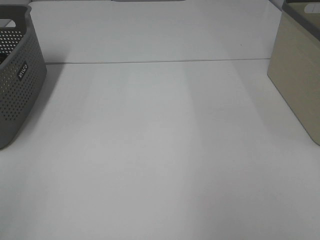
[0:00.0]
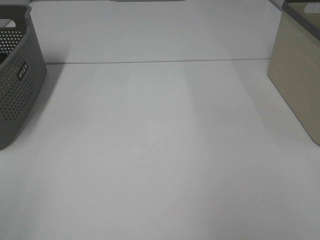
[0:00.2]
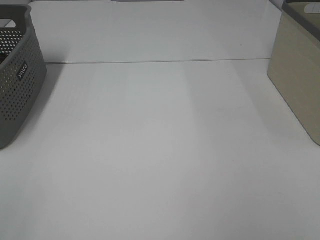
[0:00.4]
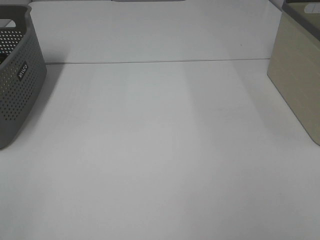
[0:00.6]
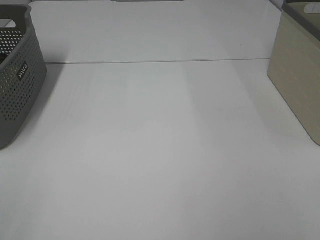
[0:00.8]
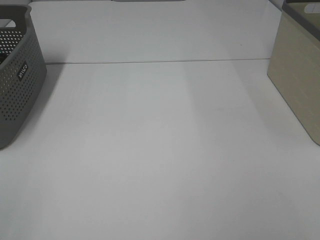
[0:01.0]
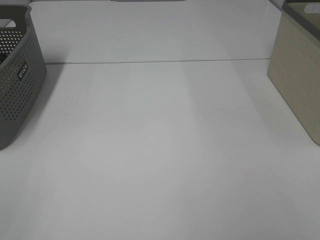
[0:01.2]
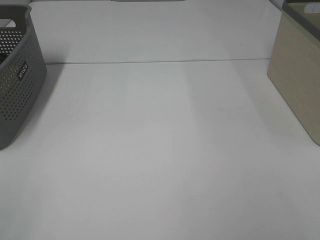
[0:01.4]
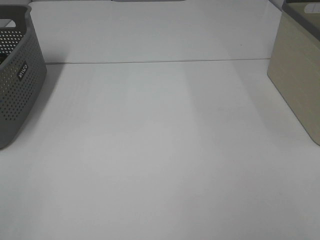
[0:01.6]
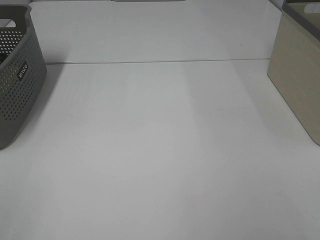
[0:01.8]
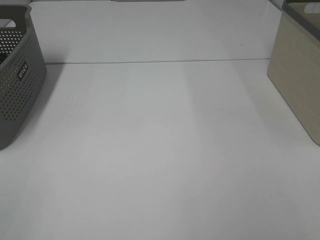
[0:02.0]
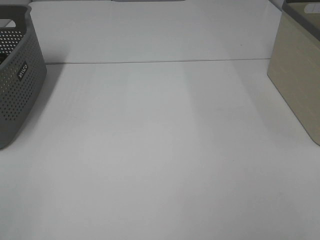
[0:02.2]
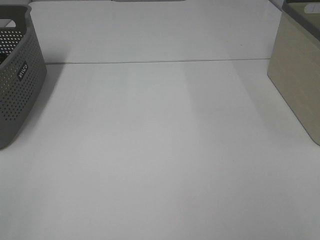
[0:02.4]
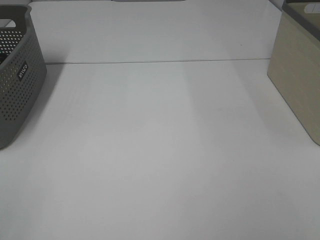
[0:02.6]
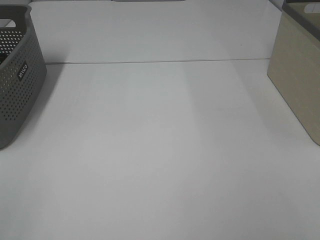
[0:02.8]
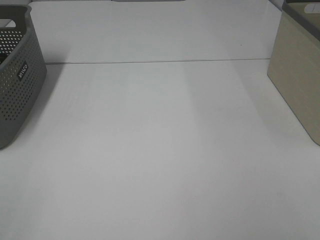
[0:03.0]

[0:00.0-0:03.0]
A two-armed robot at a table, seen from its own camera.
0:01.6 to 0:03.0: Both grippers stay about where they are.

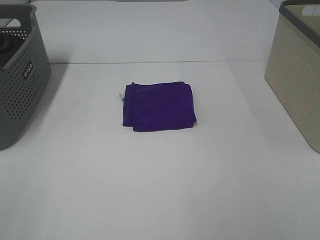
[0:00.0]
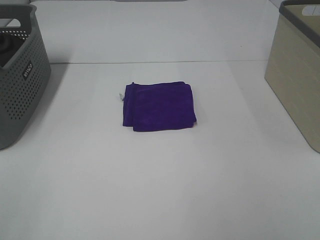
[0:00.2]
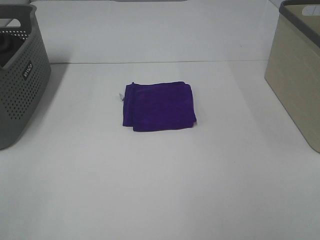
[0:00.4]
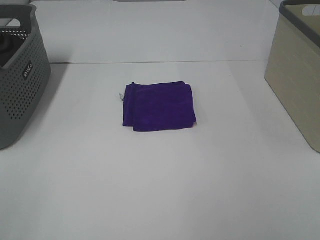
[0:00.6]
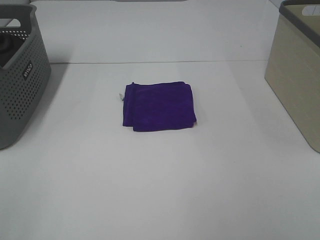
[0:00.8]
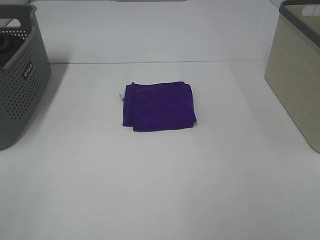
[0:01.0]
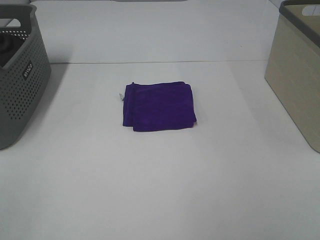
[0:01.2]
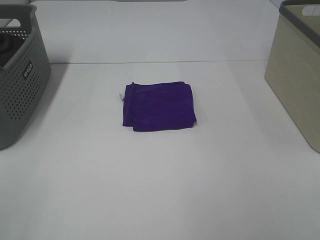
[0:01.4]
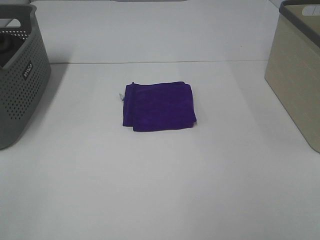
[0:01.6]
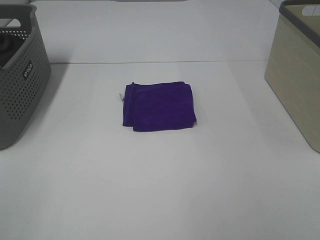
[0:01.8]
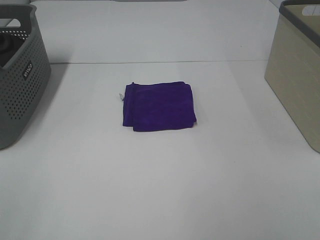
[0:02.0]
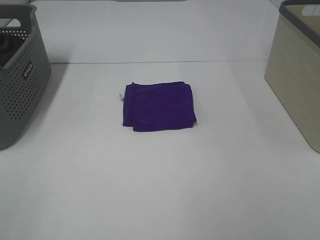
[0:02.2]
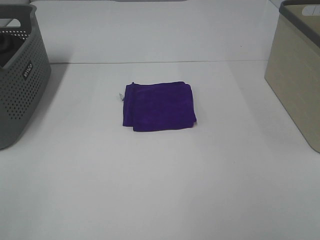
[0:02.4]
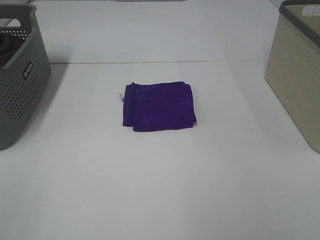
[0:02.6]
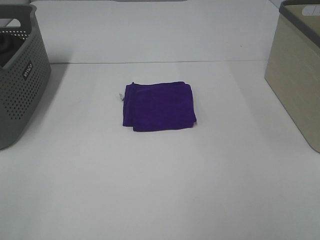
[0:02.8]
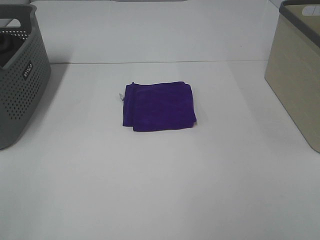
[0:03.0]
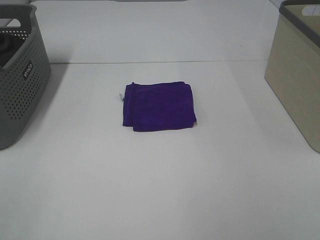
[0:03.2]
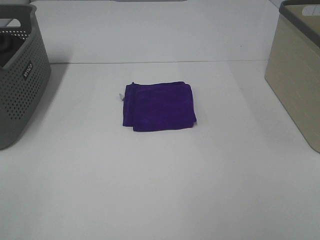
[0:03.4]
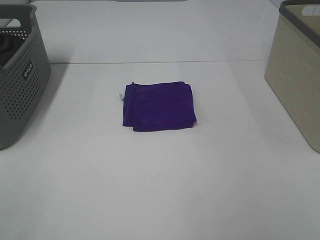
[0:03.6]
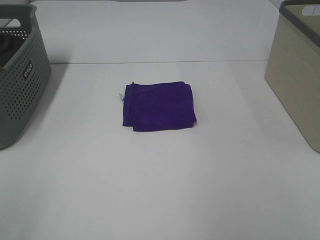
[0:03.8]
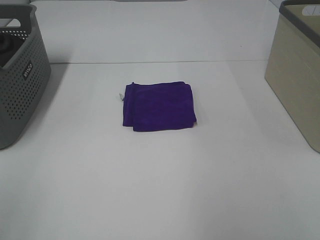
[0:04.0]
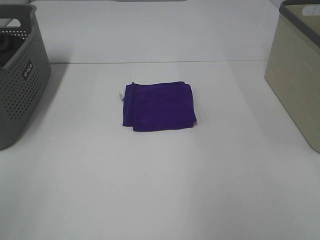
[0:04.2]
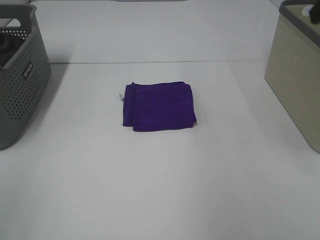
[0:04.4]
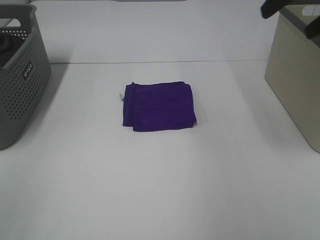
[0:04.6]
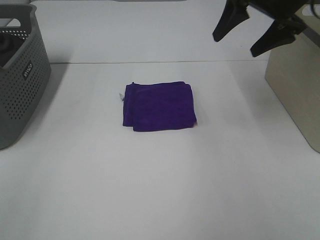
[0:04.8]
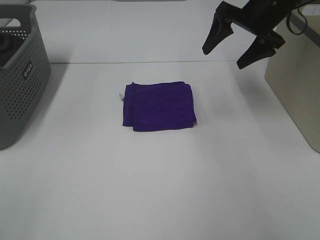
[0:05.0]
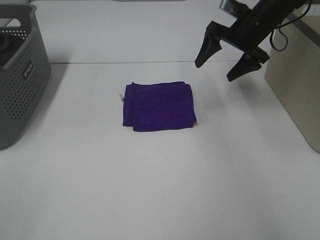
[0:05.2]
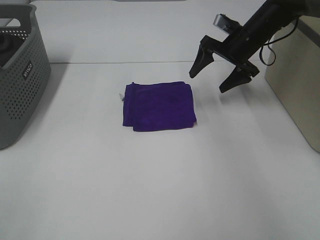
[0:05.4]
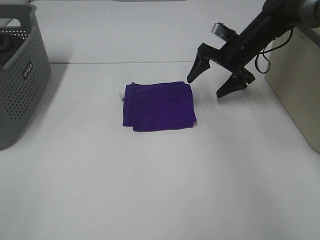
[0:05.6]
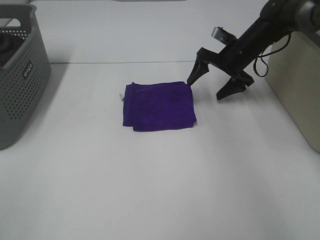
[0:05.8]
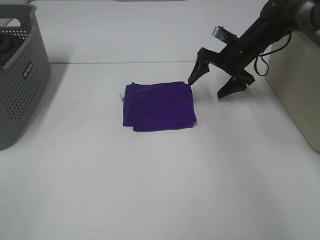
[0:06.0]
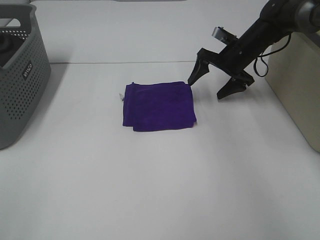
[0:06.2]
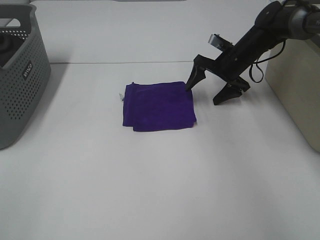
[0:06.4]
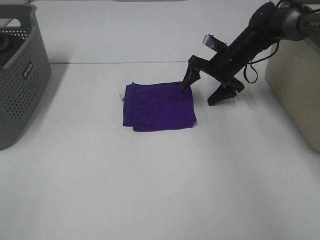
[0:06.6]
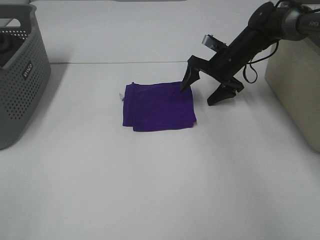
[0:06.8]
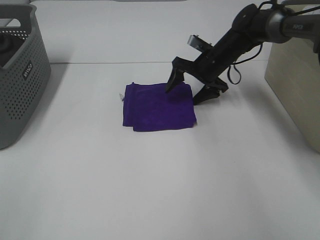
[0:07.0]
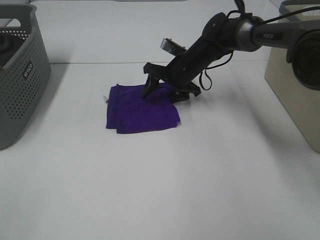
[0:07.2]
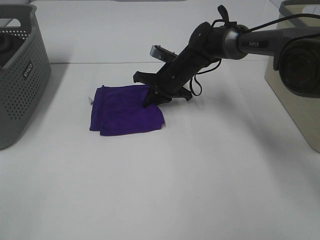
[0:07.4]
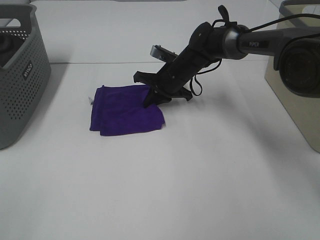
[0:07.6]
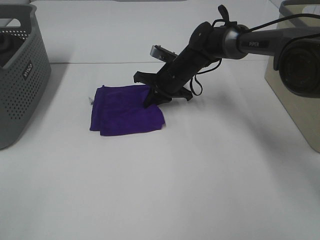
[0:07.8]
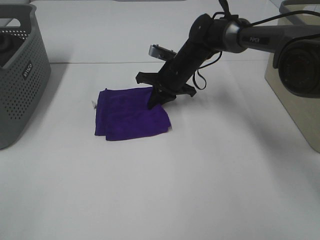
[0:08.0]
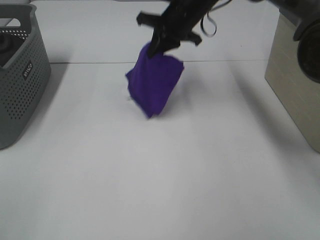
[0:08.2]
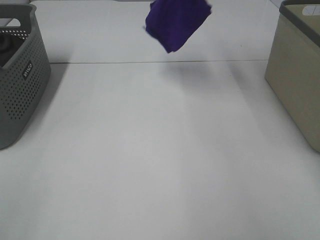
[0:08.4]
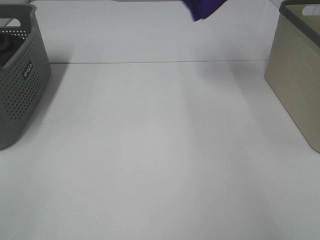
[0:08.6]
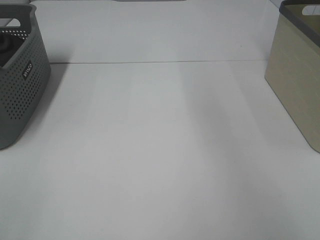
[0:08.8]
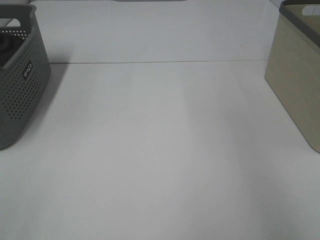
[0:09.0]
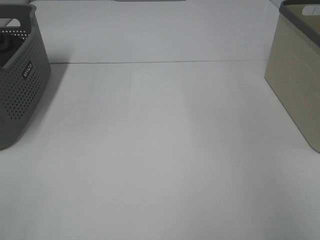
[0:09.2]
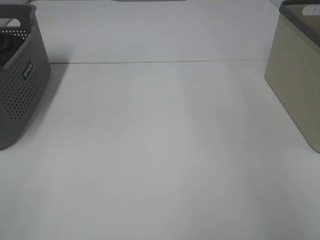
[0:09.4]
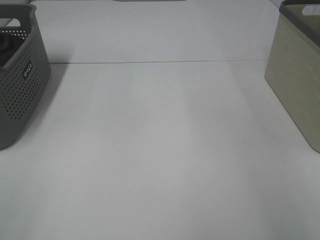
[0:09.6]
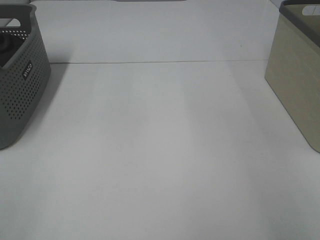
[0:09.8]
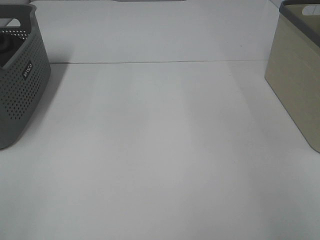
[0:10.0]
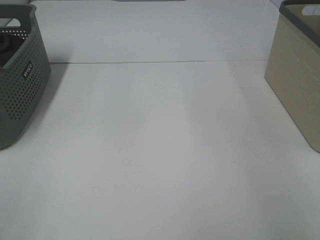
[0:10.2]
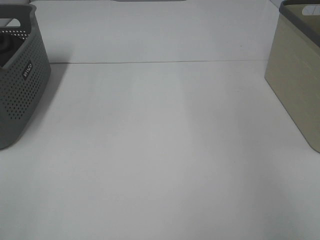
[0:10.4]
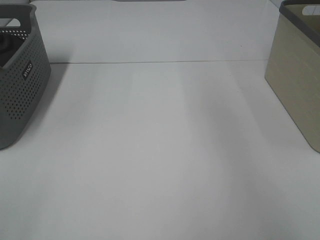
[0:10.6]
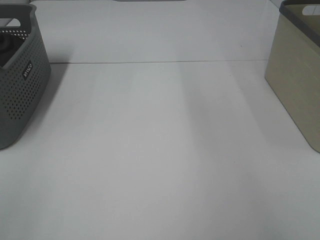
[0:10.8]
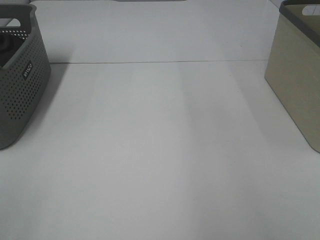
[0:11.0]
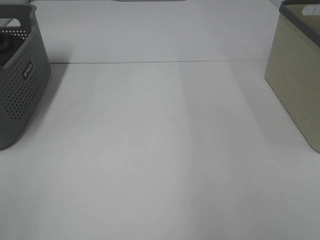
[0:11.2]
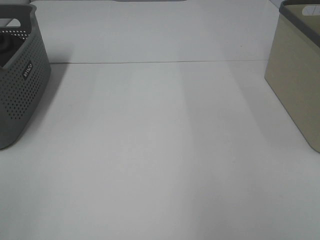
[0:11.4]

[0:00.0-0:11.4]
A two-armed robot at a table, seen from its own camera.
Step, 0:00.0 to 0:07.6: Right hand: grab the folded purple towel.
Step, 0:07.8 to 0:10.0: Right hand: place the purple towel in right basket.
0:00.0 to 0:02.8: The two grippers keep their place.
0:04.2 to 0:05.6: The right gripper shifts some 40 cm forward and downward.
0:05.6 to 0:07.2: The right gripper goes some 15 cm to the left and downward.
0:07.2 to 0:08.6: The right gripper travels upward and to the right by about 35 cm, and closes.
0:08.6 to 0:10.0: The right gripper travels to the right by roughly 25 cm, and opens its fingers.

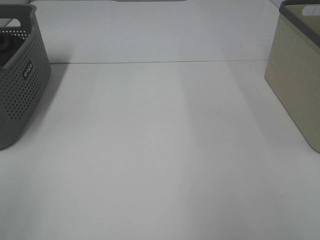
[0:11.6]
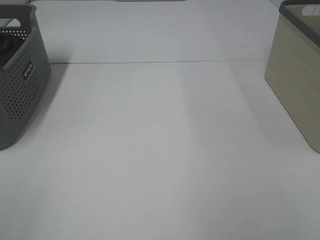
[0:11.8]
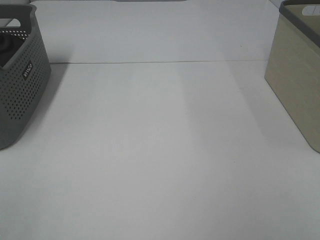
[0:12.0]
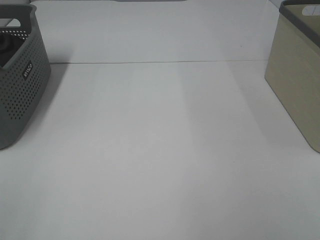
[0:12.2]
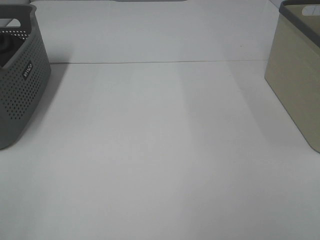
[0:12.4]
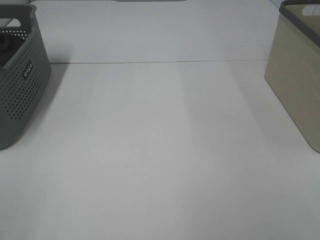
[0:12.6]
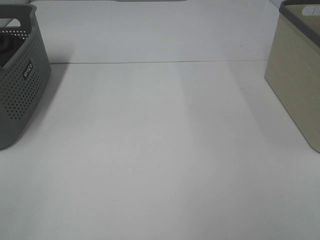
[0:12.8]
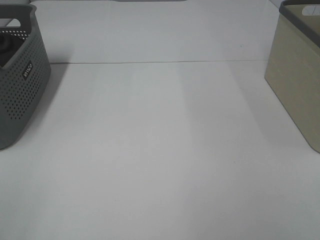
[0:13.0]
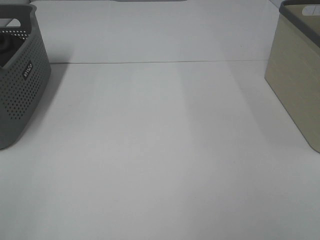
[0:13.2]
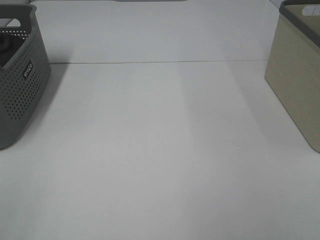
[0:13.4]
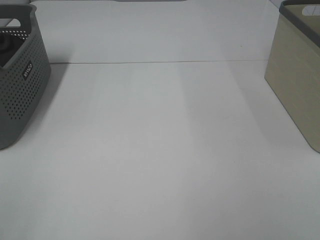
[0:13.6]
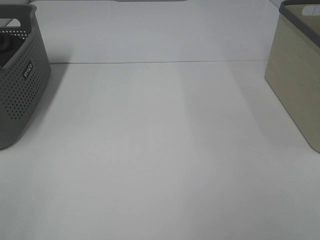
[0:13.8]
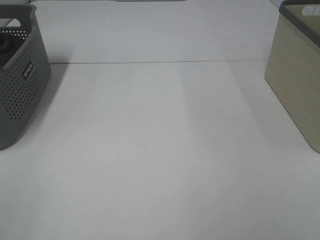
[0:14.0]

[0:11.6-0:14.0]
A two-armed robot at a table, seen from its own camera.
0:12.8 to 0:14.0: Both grippers stay put.

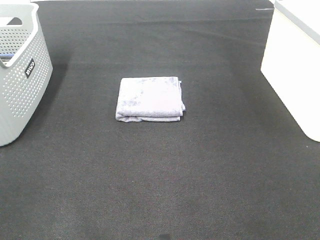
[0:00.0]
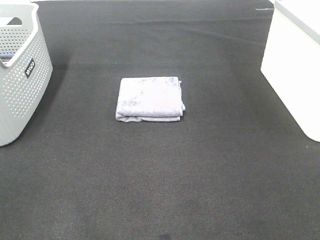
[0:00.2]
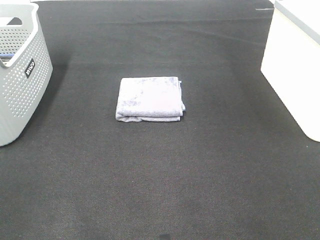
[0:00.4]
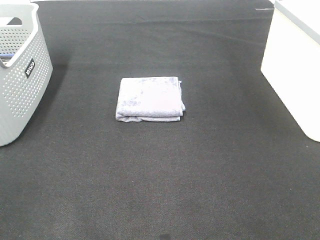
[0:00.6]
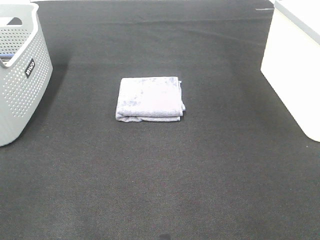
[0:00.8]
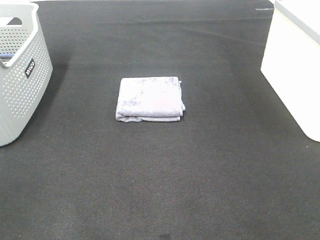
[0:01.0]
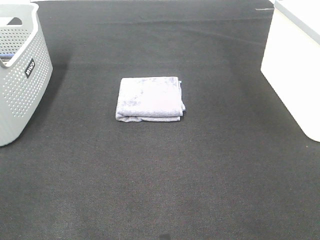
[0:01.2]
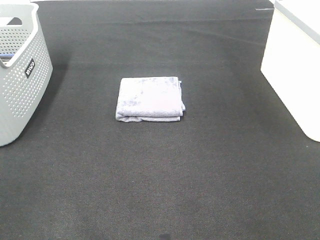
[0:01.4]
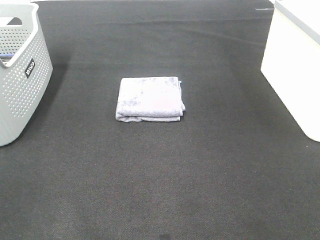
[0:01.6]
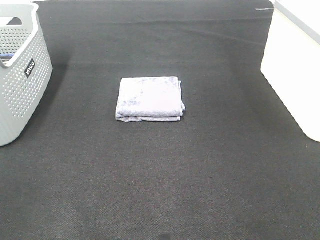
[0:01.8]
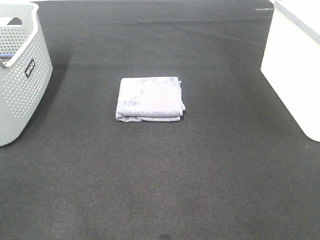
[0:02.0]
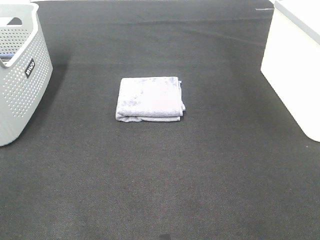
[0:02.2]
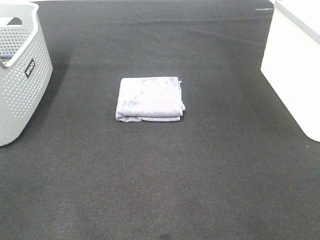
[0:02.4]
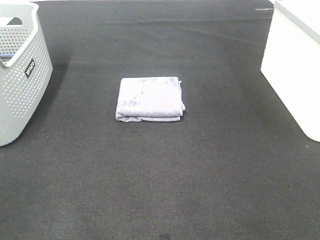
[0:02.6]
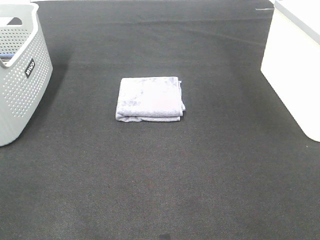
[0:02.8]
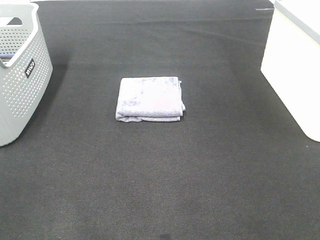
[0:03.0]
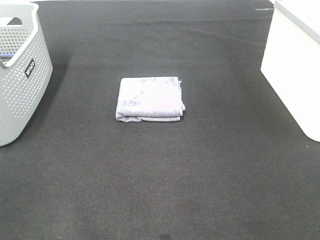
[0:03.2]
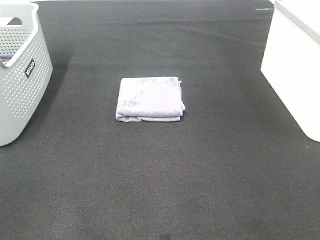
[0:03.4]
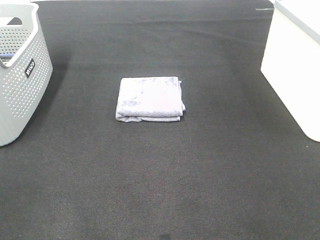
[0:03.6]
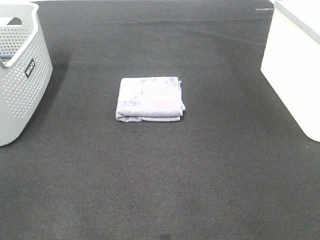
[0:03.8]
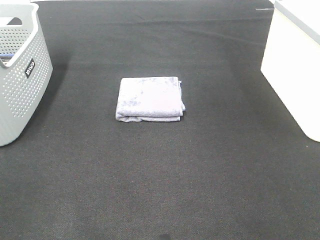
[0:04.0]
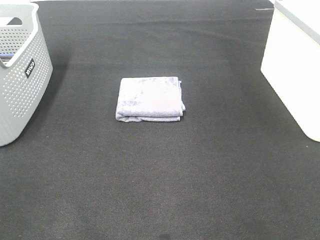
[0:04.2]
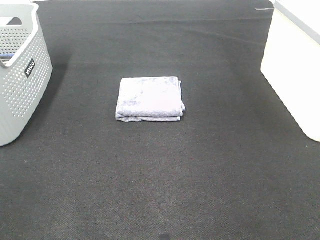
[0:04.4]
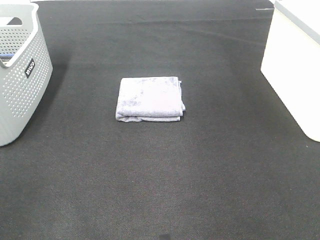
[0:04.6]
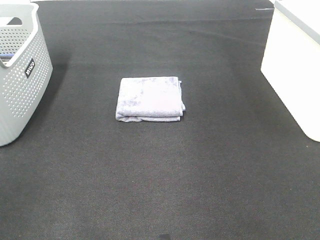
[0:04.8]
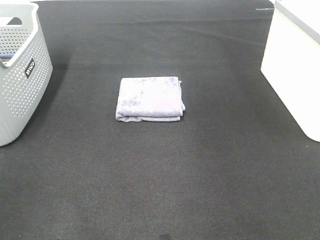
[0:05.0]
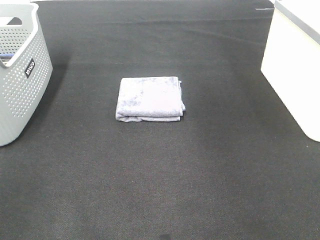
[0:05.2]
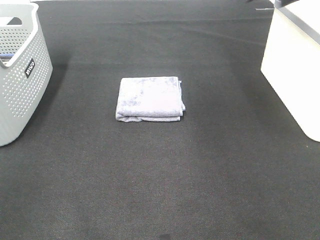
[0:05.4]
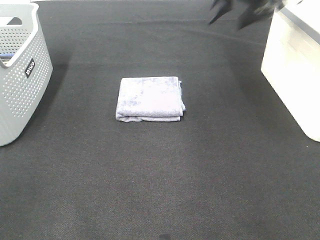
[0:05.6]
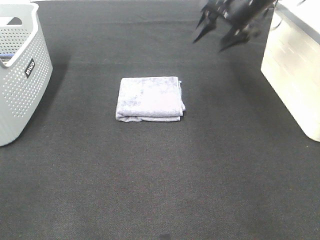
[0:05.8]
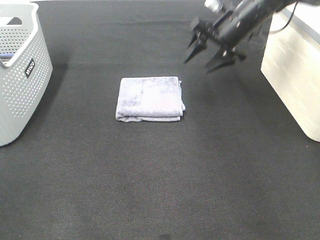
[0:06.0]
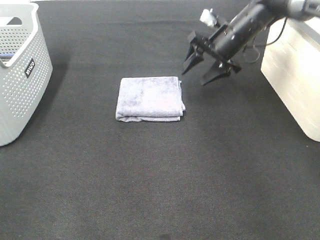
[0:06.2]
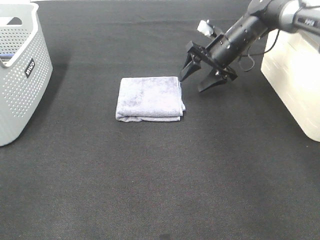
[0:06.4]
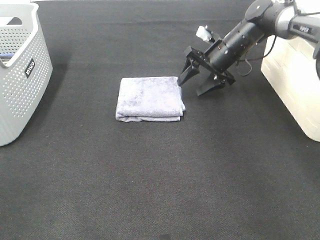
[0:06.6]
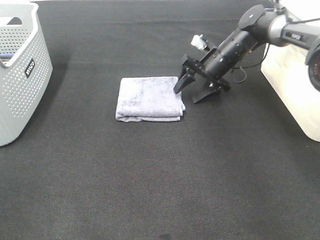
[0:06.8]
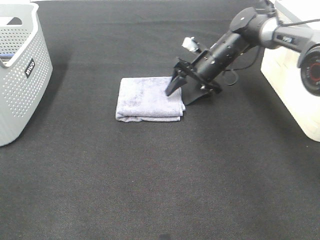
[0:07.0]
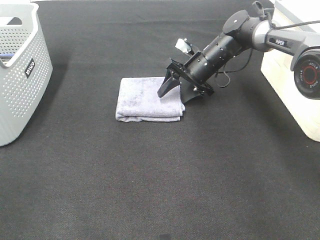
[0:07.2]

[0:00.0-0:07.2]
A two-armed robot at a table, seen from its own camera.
0:00.0 to 0:02.8: Neither gripper changes place.
0:04.4 to 0:05.8: The right gripper heads forward, covering approximately 35 cm.
0:05.8 to 0:07.2: The right gripper goes roughly 15 cm downward and to the left.
